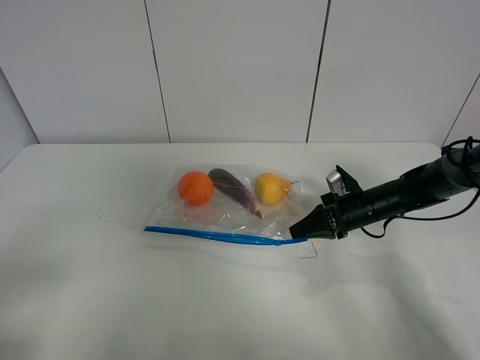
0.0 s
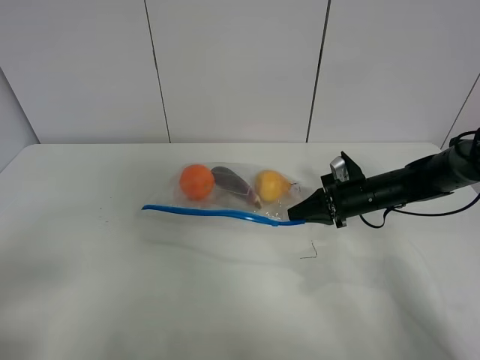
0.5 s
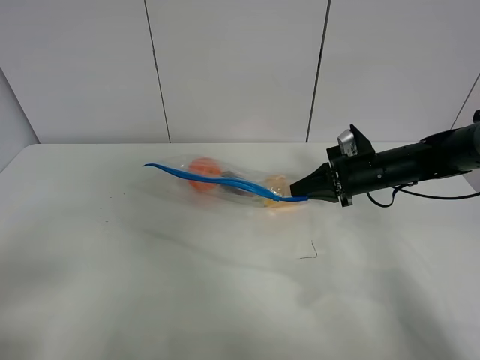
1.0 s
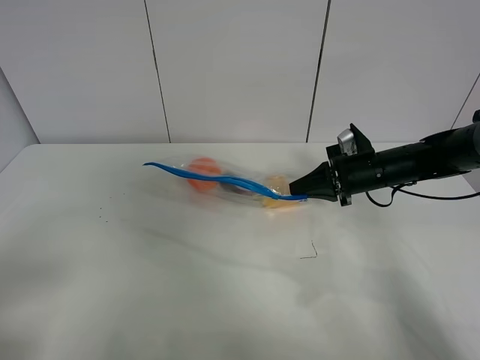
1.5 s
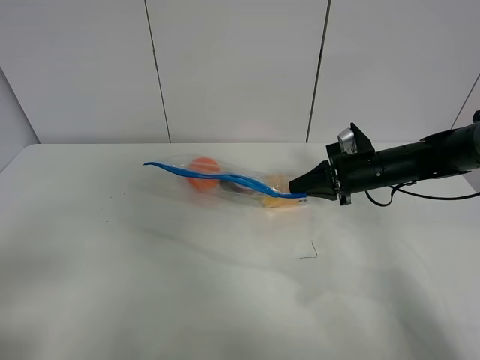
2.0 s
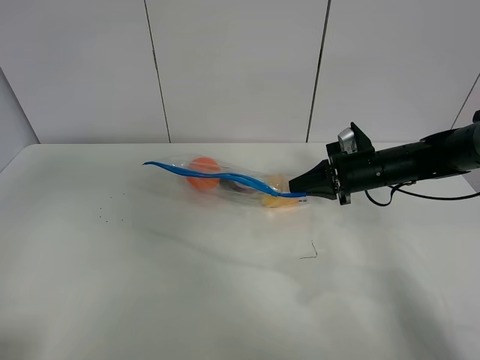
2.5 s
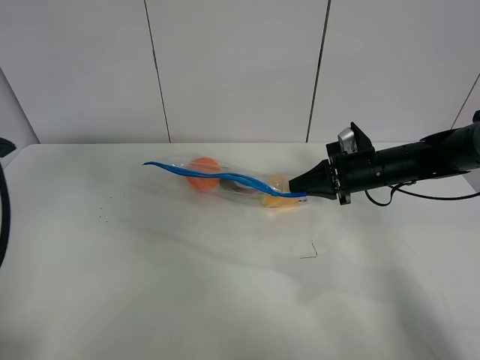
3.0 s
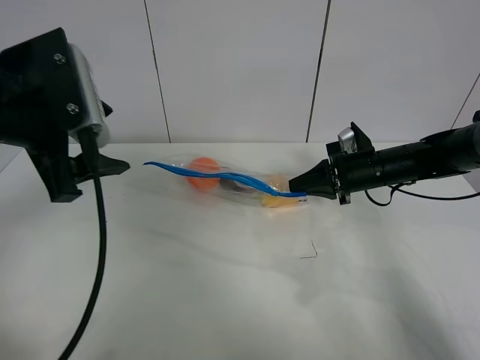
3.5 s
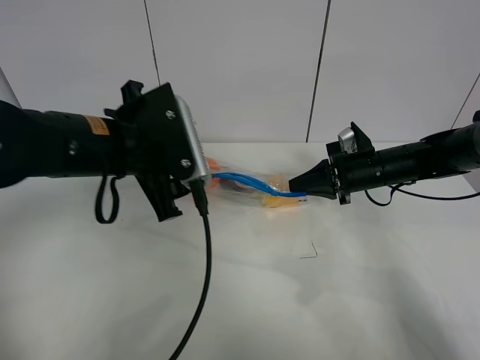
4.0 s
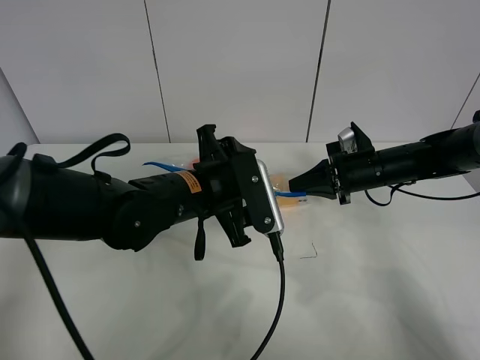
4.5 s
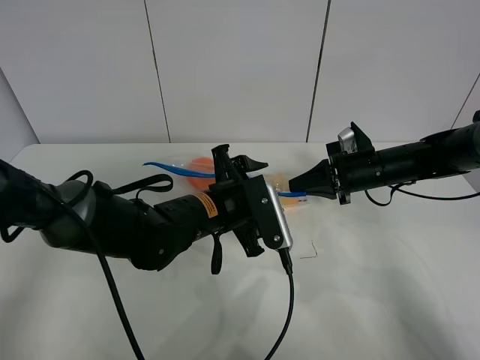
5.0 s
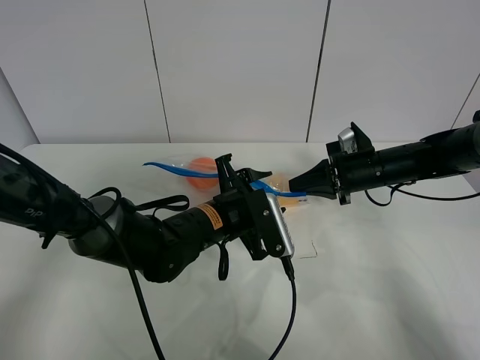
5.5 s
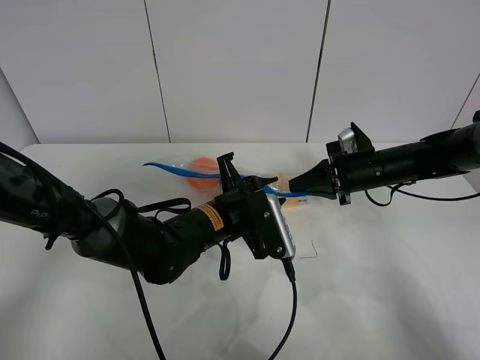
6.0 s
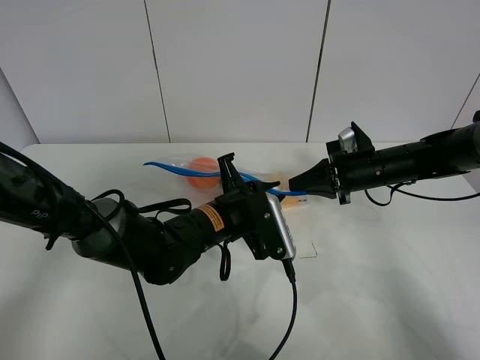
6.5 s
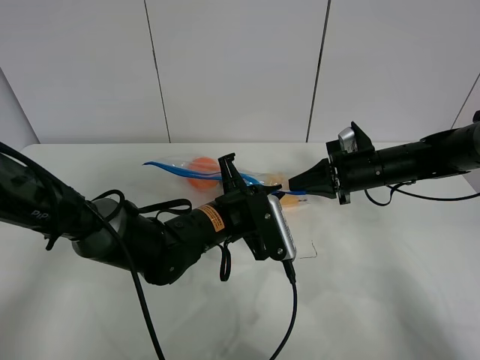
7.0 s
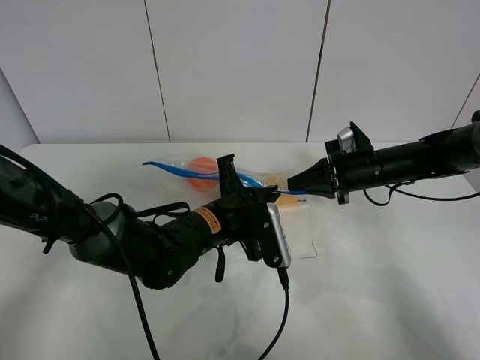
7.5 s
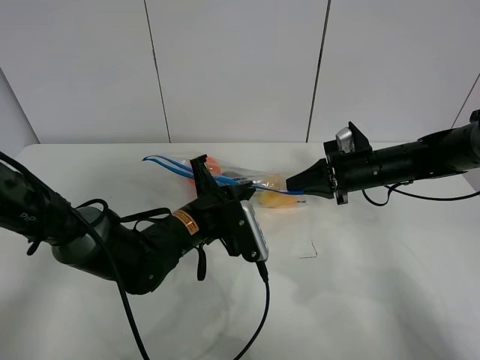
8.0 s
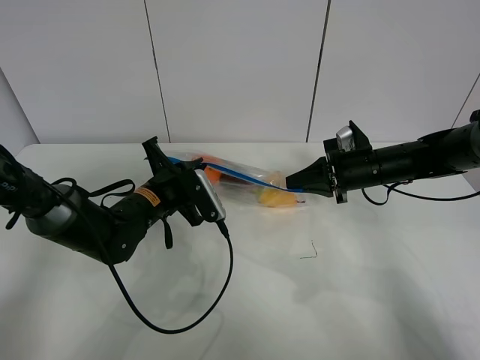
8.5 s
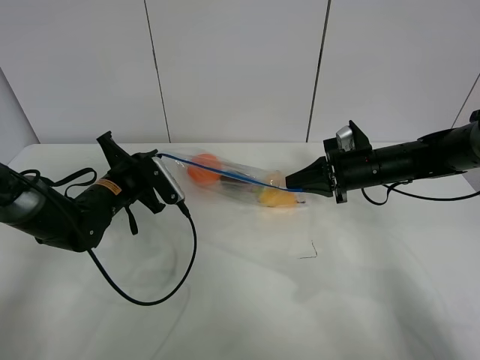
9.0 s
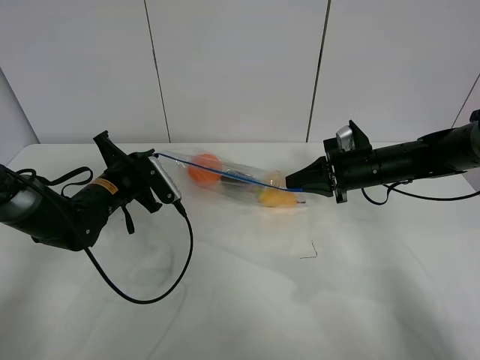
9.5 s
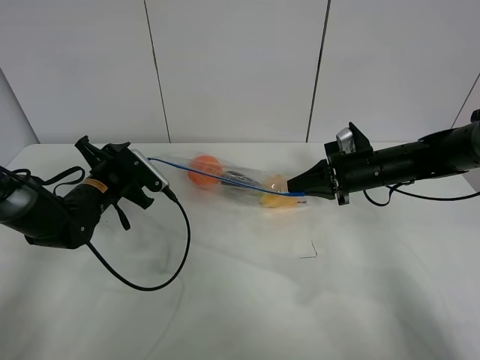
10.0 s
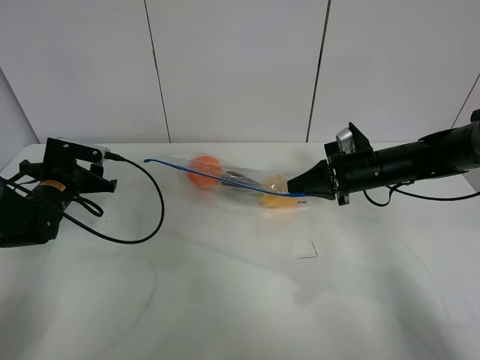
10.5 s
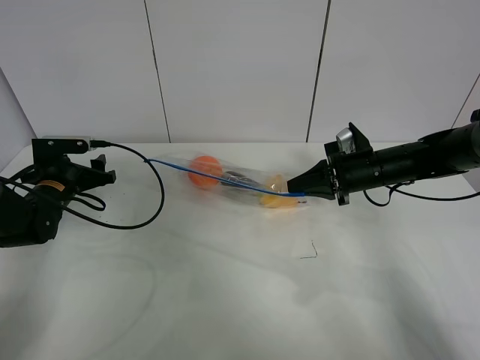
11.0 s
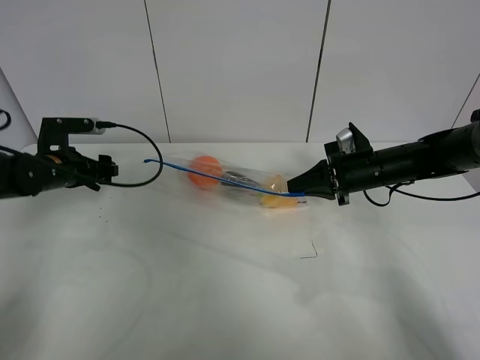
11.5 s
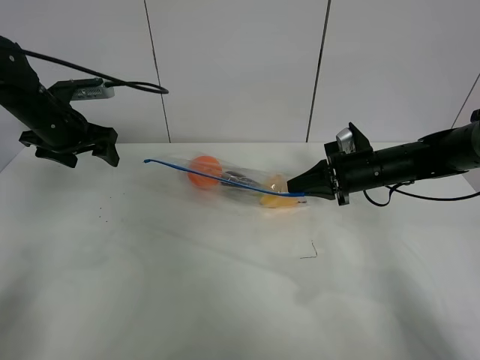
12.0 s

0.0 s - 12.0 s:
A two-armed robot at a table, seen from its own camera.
Step, 1.5 s - 10.0 s: Pull the fruit bag with left gripper.
0.0 s - 2.0 s: The right gripper is displaced upward by roughly 10 cm.
2.0 s - 4.0 s: The left gripper travels forward and to the right by roughly 30 cm.
4.0 s - 6.0 s: The left gripper heads downward and to the right, covering approximately 15 cm, and closes its fingers.
6.0 s - 8.0 s: The left gripper closes its fingers.
8.0 s - 10.0 s: The left gripper goes roughly 20 cm to the left and forward, and opens its fingers.
10.0 s - 12.0 s: The left gripper heads upward, to the left and forward, covering some 15 cm, and opens up.

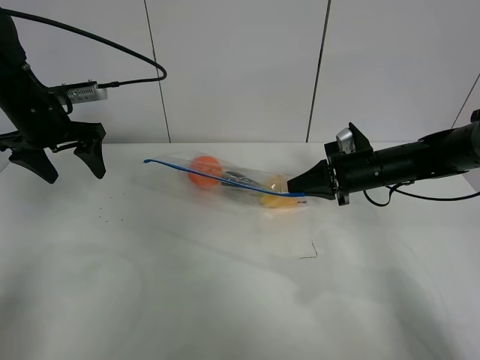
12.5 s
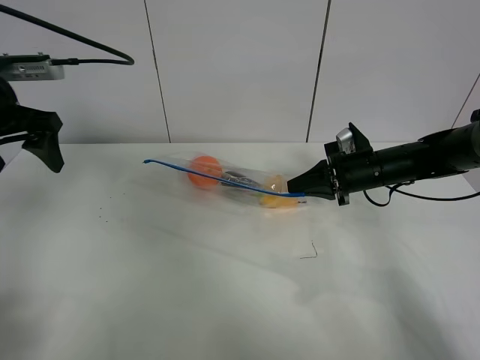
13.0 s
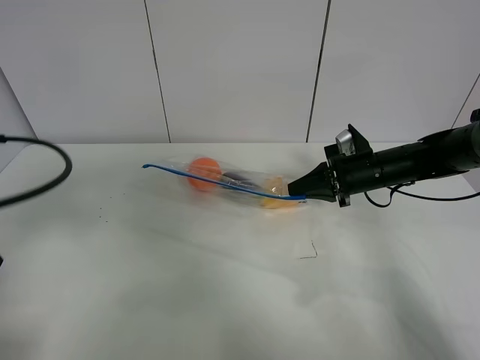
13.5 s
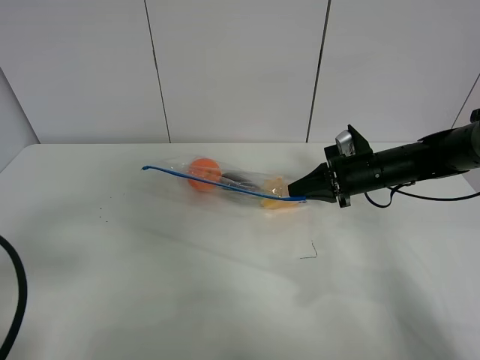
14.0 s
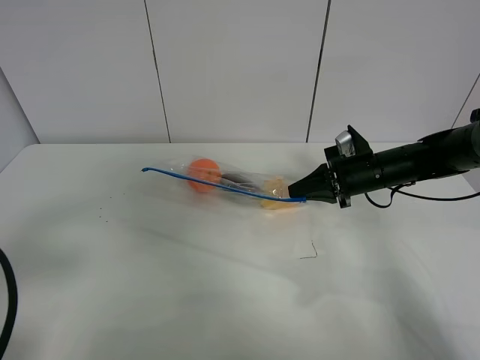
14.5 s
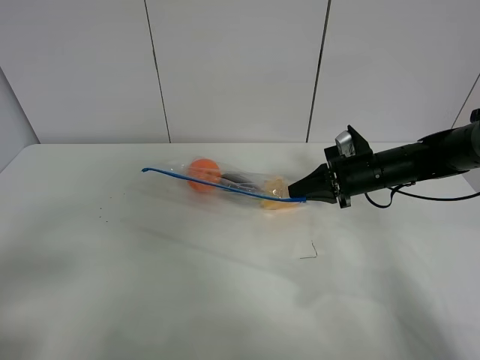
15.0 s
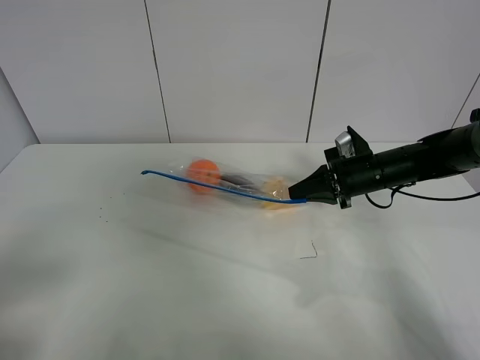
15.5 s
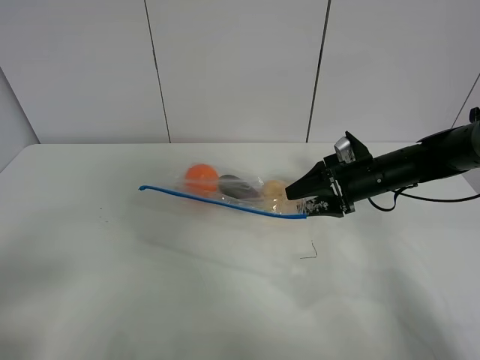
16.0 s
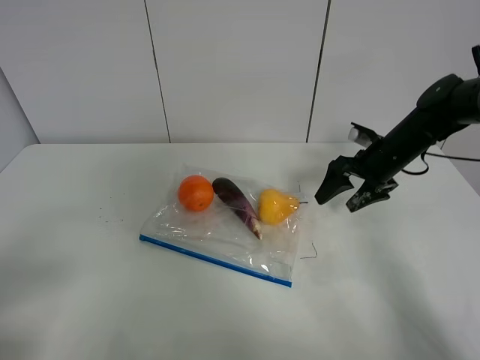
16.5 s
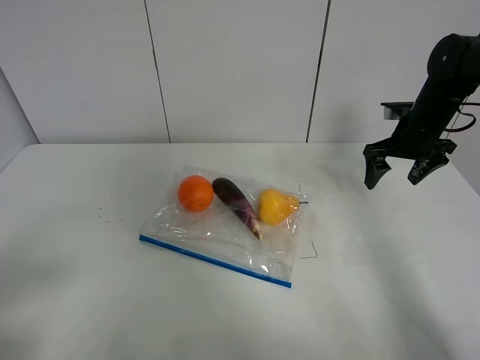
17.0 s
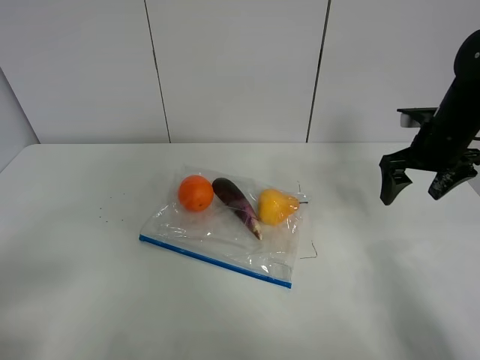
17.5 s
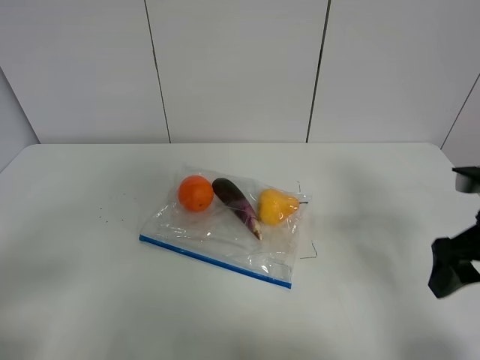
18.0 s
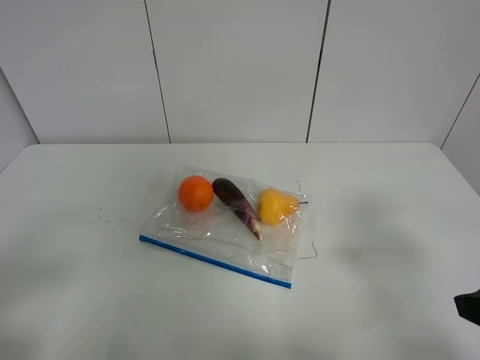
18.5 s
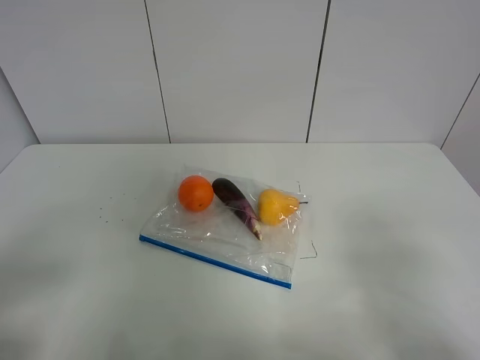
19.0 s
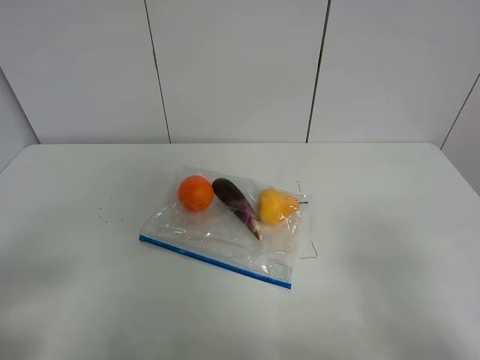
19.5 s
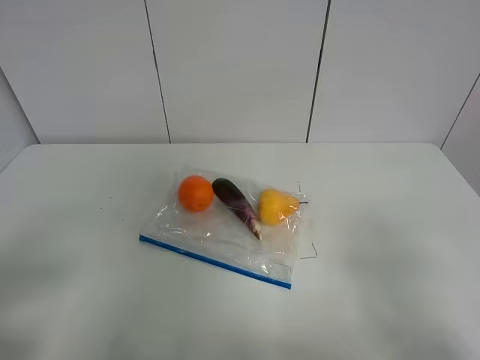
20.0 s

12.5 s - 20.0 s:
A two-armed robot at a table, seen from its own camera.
12.5 s - 14.5 s: The left gripper shifts about 30 cm backward.
14.5 s - 16.5 s: The right gripper changes place by roughly 5 cm, and opens, while the left gripper shifts about 5 cm backward.
16.5 s - 18.0 s: The right gripper goes some 20 cm backward.
18.0 s - 20.0 s: The right gripper travels backward by approximately 20 cm.

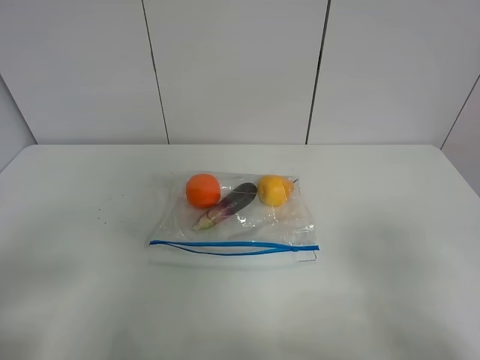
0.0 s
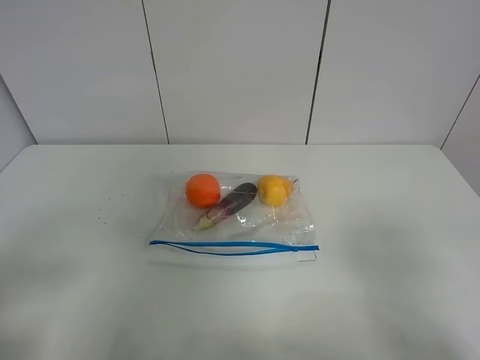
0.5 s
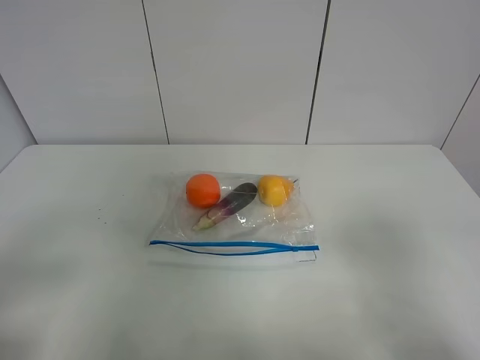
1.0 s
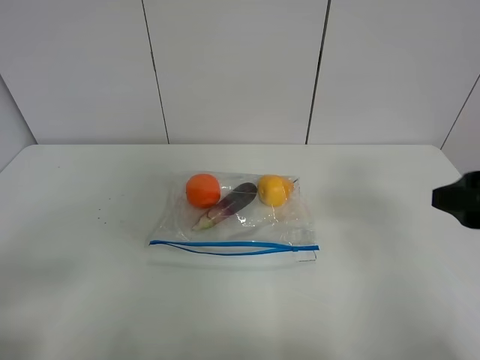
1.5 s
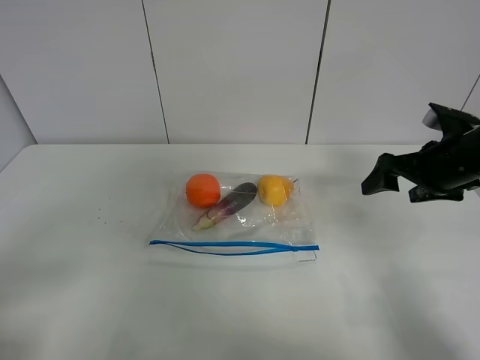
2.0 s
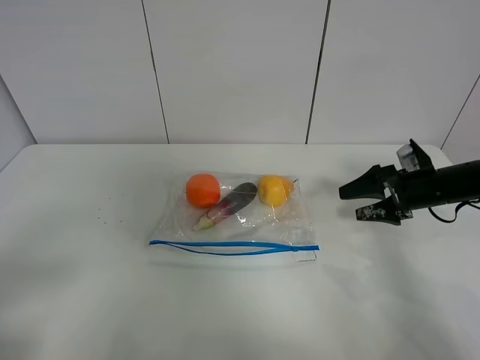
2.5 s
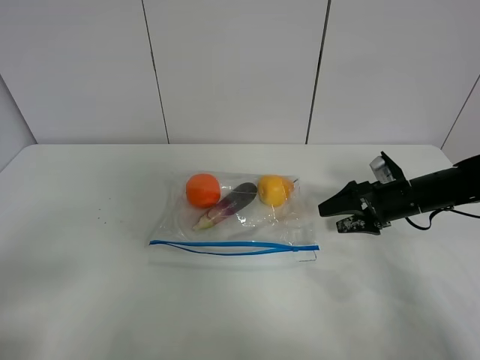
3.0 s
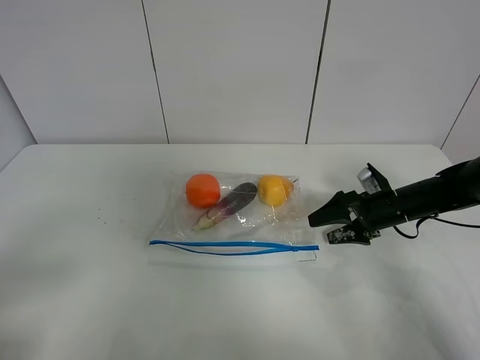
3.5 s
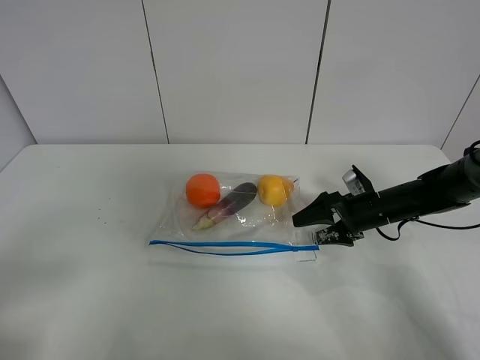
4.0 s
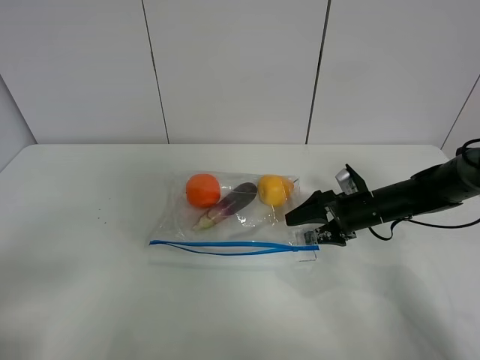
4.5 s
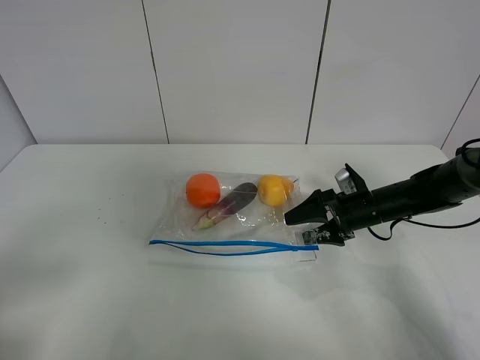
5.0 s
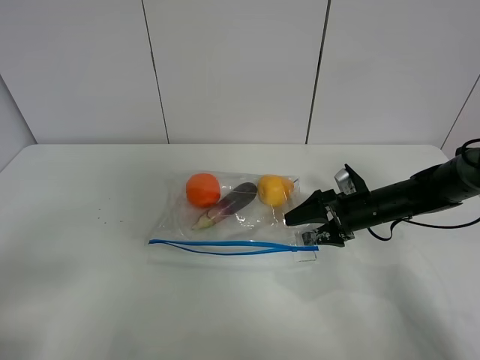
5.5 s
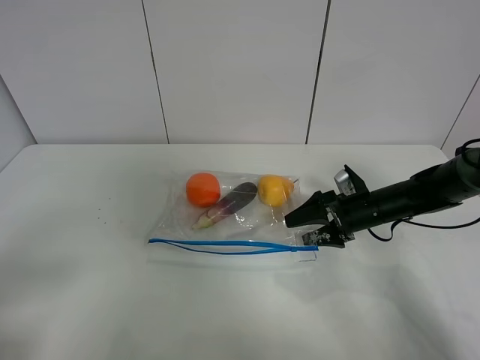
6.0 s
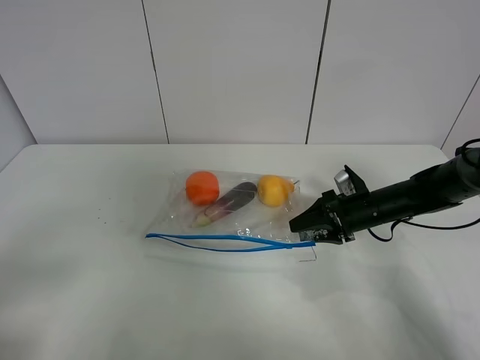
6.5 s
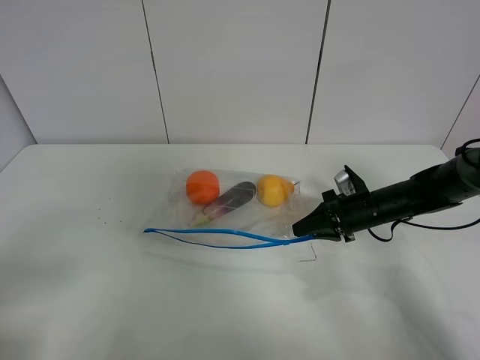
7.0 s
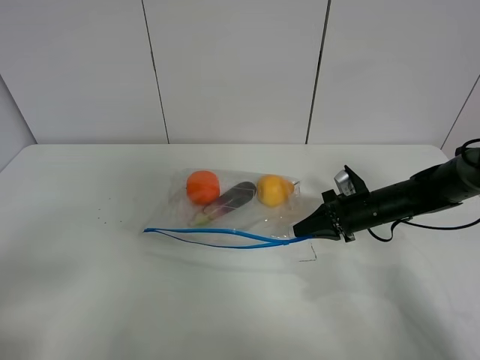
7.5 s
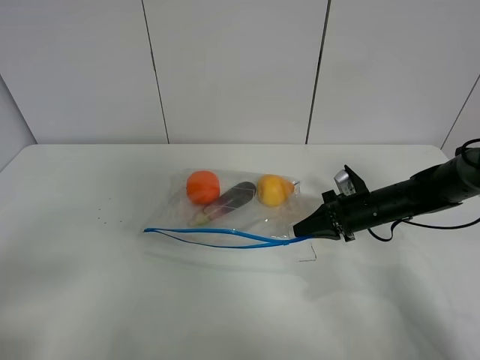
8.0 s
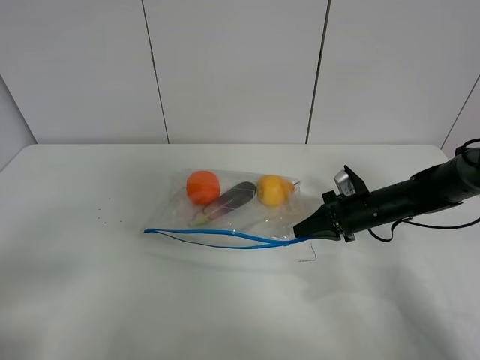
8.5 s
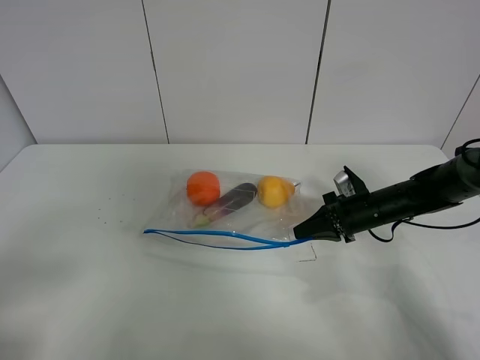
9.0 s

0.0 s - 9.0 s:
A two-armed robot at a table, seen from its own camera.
Step, 0.0 s - 7.5 s: Grasp the fruit bag with right gripper.
0.0 s - 2.0 s: The right gripper moves forward, roughly 30 cm.
2.0 s - 4.5 s: The right gripper is displaced downward and to the left by approximately 15 cm.
4.5 s - 7.0 s: The right gripper closes.
7.0 s - 9.0 s: Neither gripper changes place.
